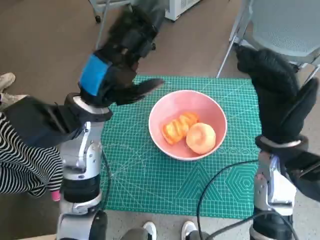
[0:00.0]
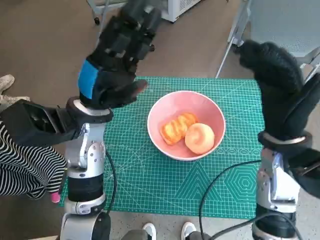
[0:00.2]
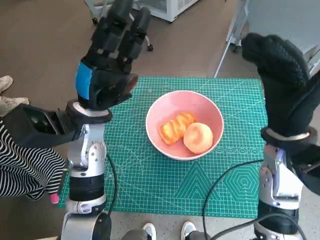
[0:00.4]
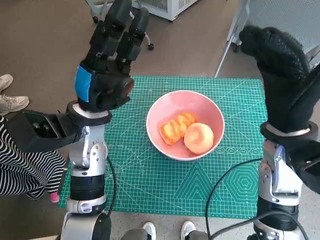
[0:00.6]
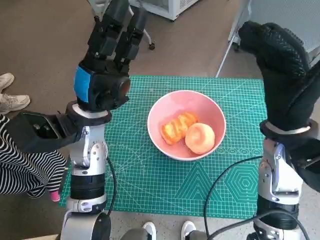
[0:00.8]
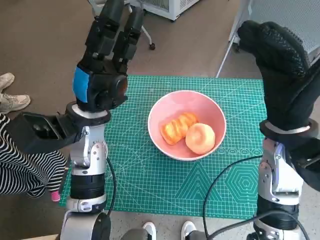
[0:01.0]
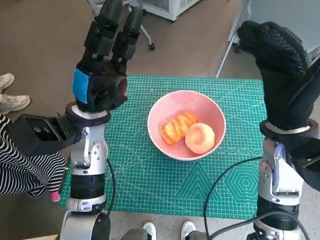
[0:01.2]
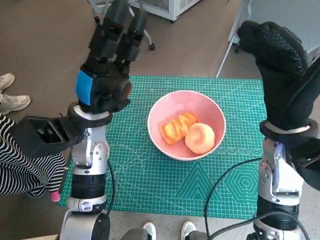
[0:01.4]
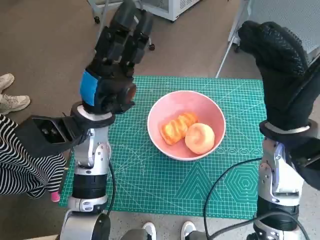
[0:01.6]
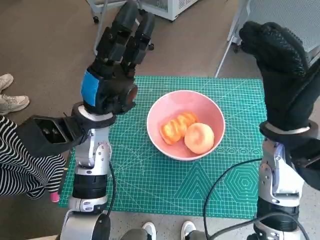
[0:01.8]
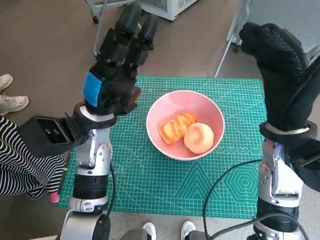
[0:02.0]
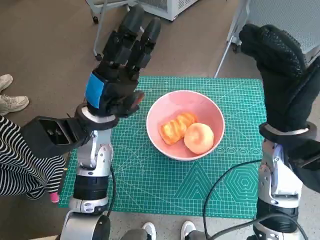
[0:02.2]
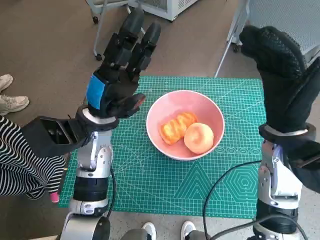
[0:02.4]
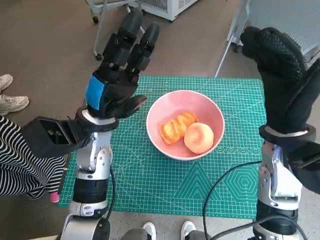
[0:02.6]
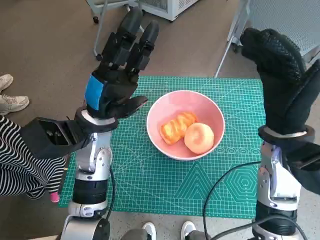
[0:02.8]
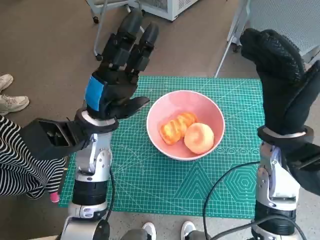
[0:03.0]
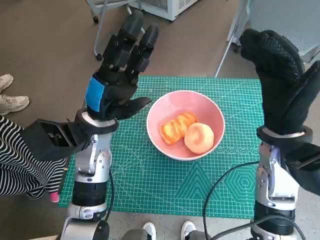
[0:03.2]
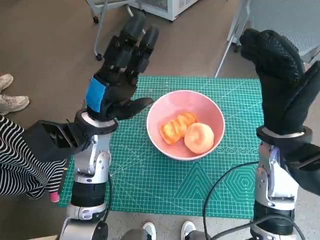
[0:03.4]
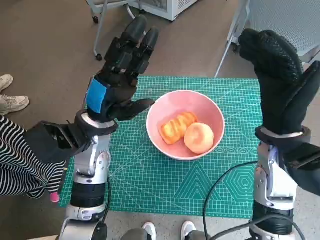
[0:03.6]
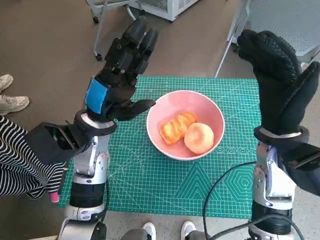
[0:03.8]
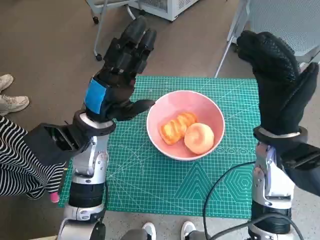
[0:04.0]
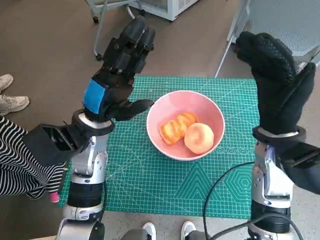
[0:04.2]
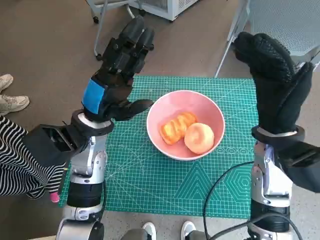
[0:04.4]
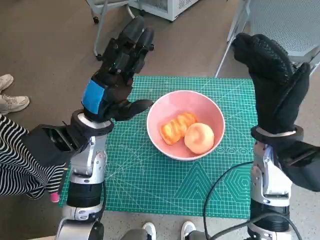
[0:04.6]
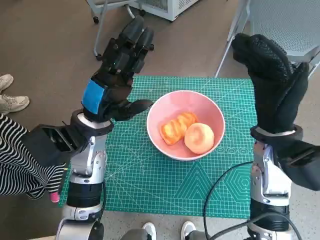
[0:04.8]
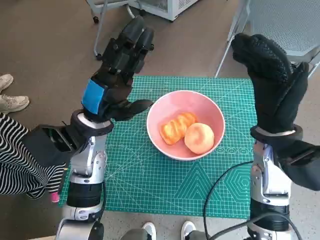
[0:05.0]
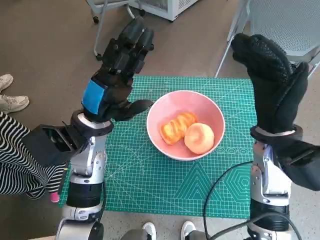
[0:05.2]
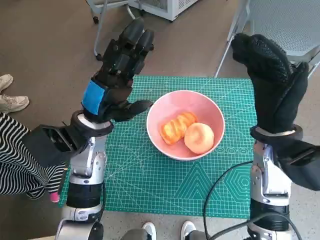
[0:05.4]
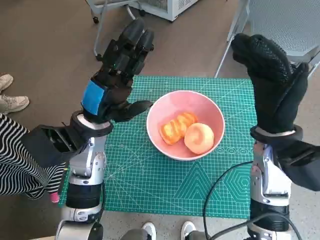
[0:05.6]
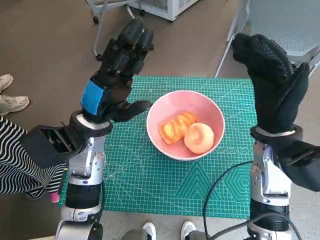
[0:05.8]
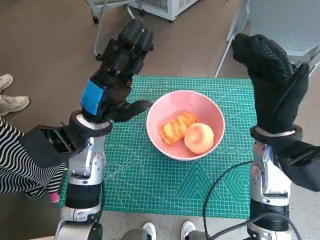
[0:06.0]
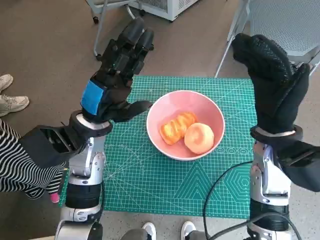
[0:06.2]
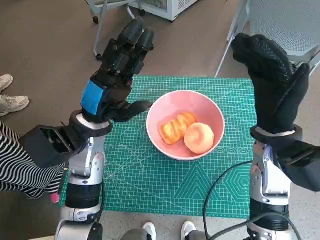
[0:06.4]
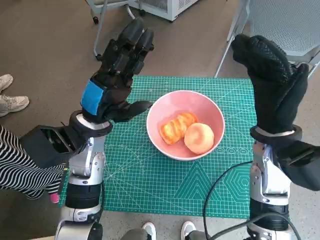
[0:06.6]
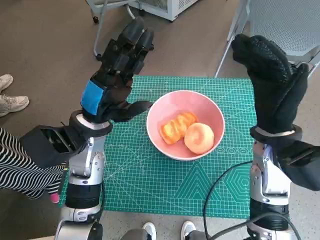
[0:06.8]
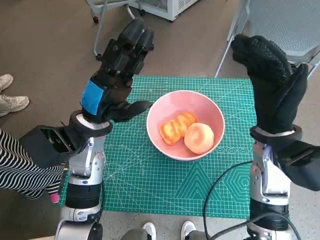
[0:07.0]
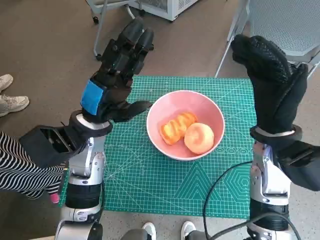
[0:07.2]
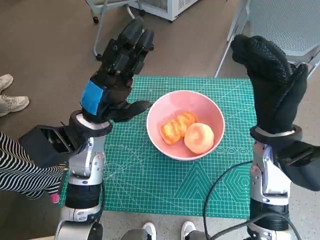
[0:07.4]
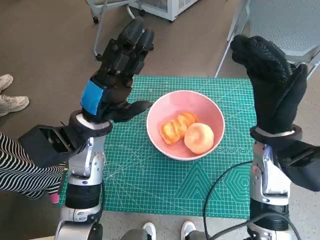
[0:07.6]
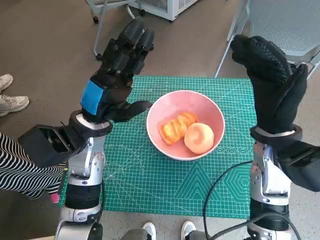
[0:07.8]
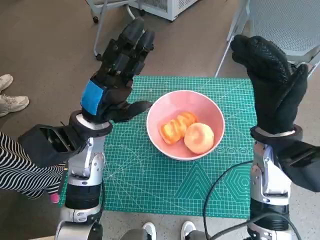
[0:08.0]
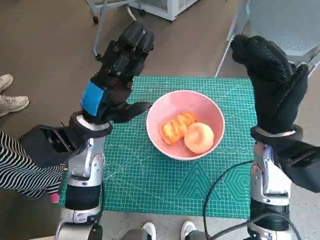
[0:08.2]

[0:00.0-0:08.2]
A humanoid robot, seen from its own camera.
Task of the whole recording: Push the bowl into the center of the table and put the bread into the bowl.
0:01.6 to 0:03.2: Both hands stay about where they are.
0:03.2 to 0:05.0: There are only small adjustments of the hands.
0:05.0 to 0:08.2: Neither hand changes place.

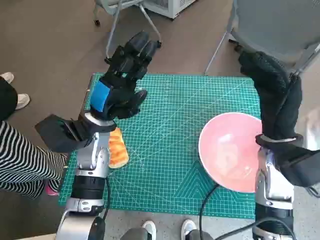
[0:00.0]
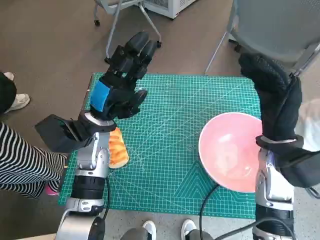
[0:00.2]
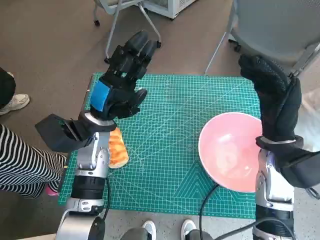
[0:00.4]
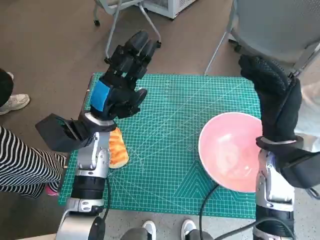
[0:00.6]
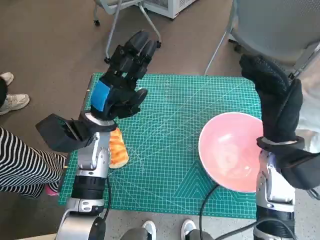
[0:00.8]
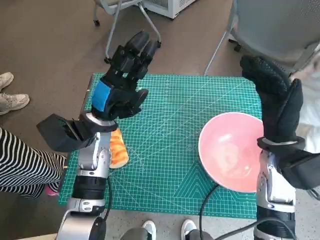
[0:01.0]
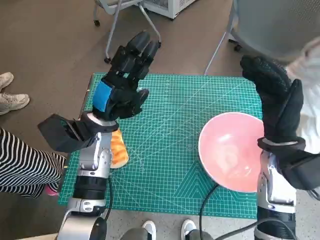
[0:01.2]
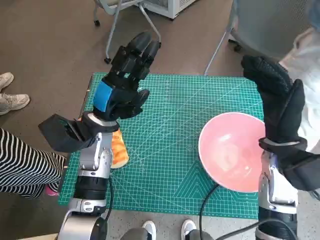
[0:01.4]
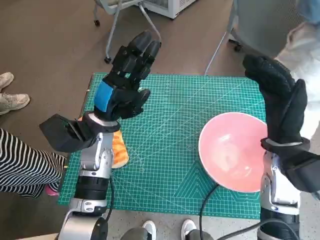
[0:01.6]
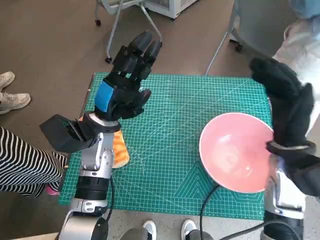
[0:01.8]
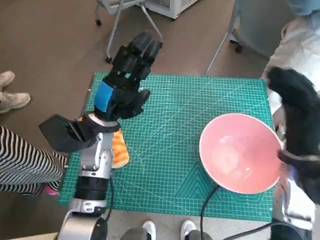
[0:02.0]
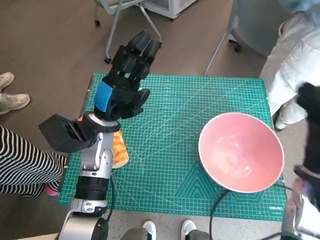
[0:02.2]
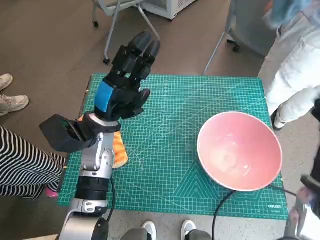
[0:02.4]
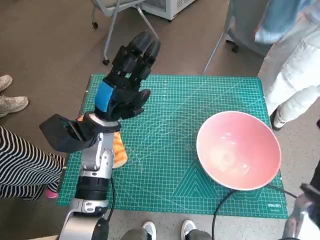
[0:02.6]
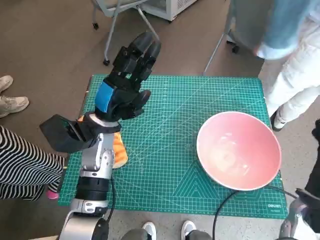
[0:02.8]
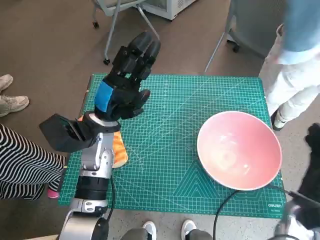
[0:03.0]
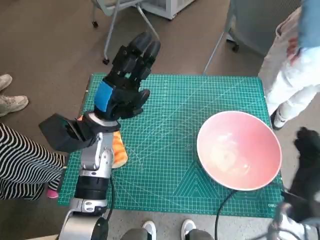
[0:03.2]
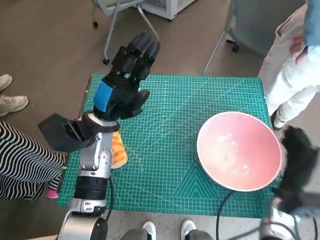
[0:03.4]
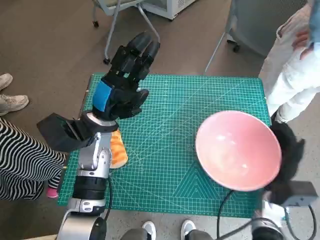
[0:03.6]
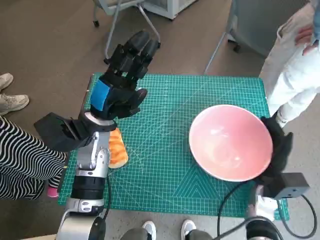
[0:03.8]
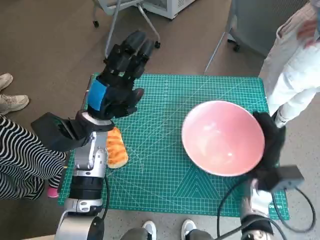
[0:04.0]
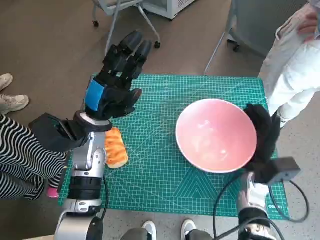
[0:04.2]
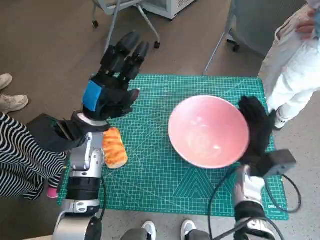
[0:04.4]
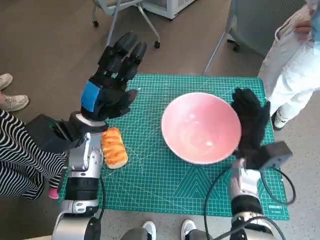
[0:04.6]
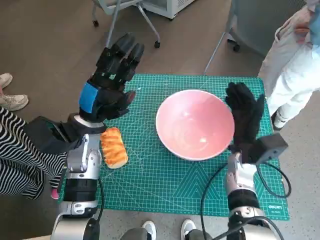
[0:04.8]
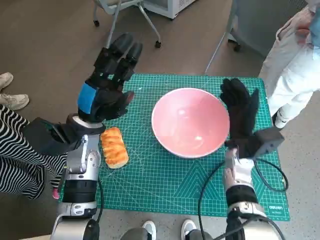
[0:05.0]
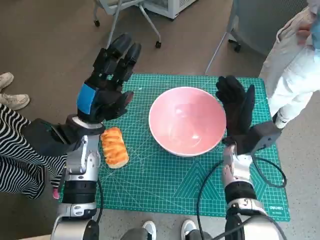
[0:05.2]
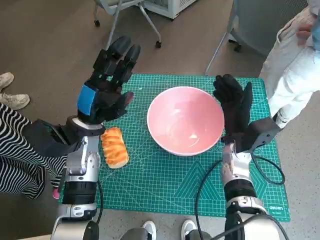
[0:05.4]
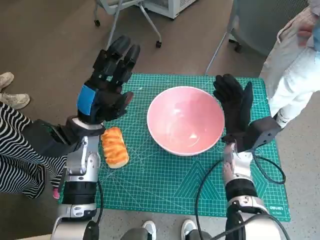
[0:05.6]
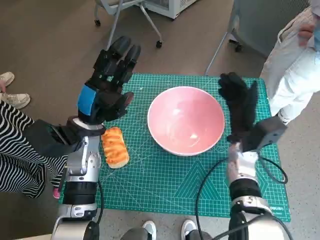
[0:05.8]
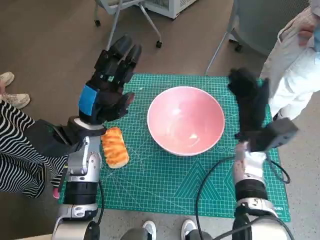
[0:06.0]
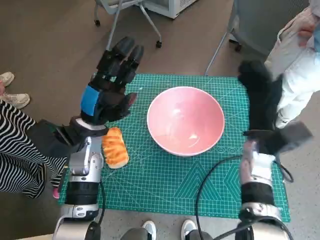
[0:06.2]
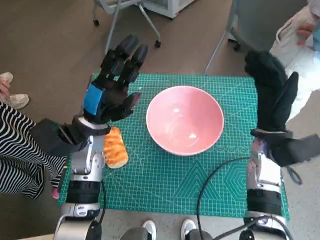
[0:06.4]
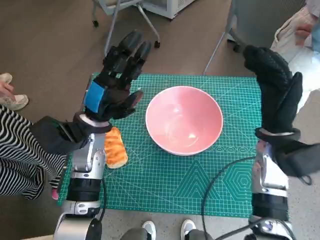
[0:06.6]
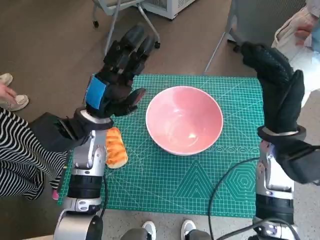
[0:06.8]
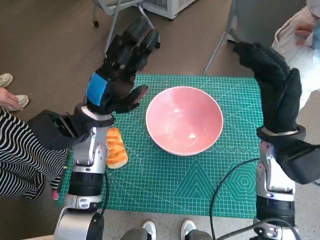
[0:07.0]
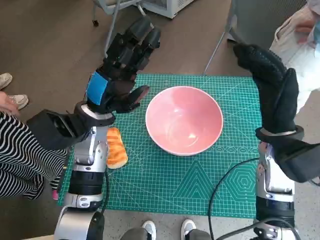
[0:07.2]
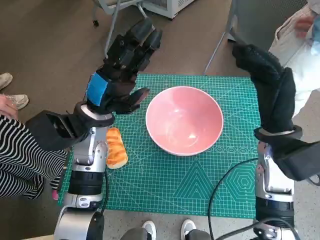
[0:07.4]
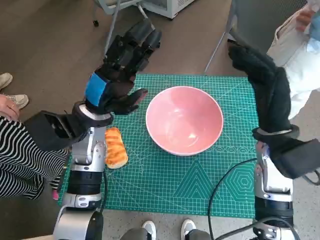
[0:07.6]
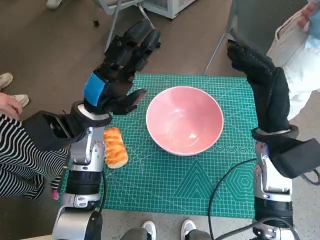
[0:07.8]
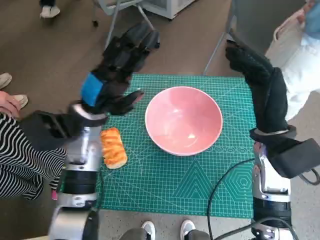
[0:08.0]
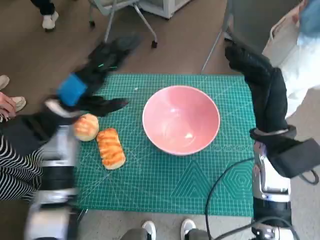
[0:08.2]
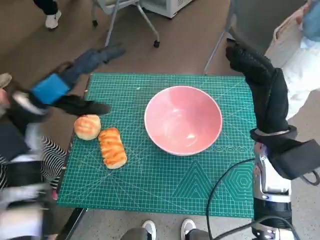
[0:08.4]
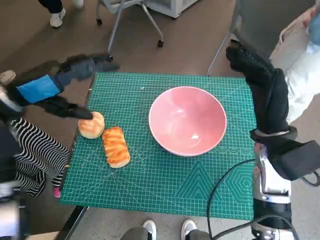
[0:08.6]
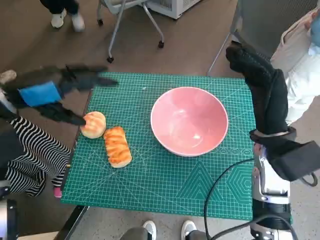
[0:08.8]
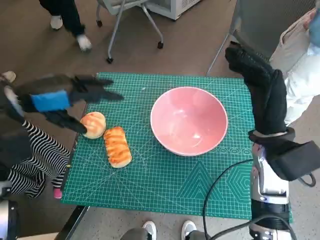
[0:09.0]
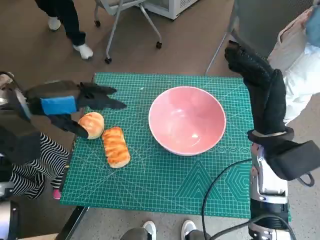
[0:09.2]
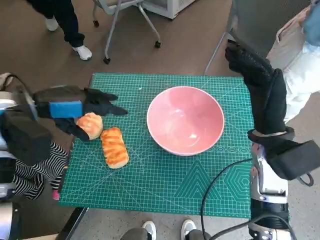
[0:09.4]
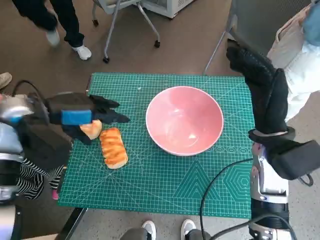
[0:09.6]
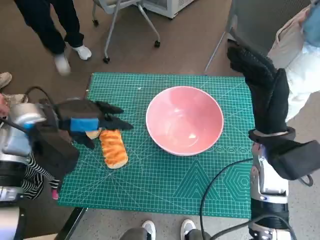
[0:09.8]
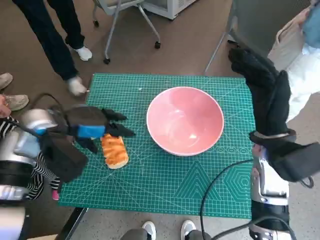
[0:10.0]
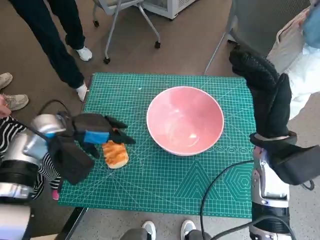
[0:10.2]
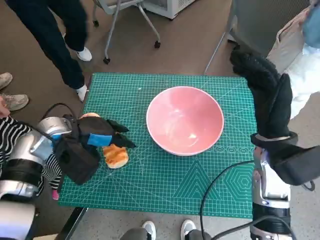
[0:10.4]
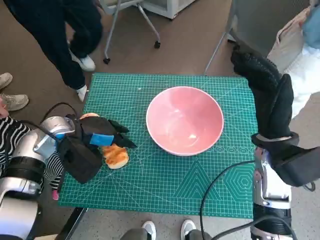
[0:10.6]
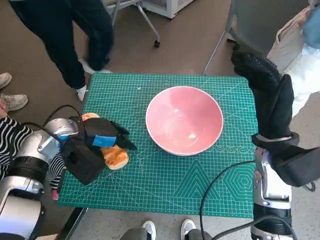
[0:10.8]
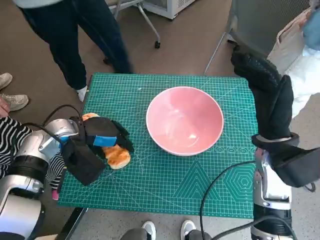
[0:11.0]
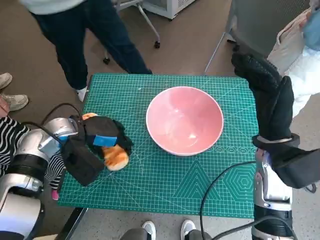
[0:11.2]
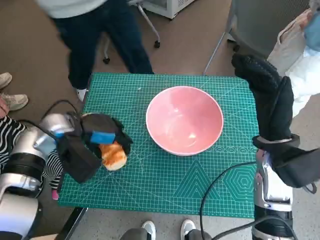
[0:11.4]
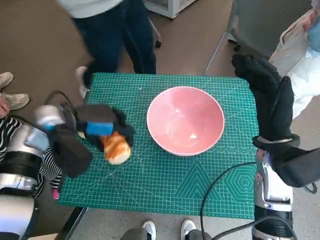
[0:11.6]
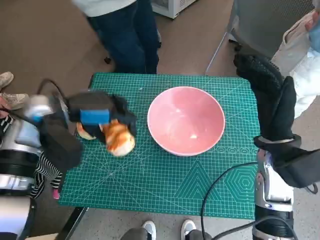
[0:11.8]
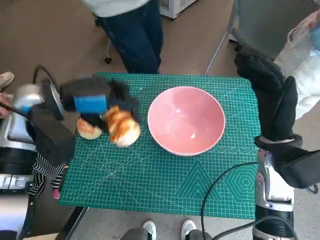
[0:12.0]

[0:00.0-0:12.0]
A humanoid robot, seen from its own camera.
Task of the whole recording: Push the bowl into the center of the table and put the bread into the bowl.
Step, 0:00.0 to 0:05.6: Move the pink bowl to the center of table with right hand.
Step, 0:06.0 to 0:10.8: Grasp the long bread with left hand.
0:01.6 to 0:03.0: The right hand shifts some 15 cm downward, to the right and backward.
0:03.0 to 0:04.4: The right hand is displaced to the left and forward by approximately 10 cm.
0:04.4 to 0:06.0: The right hand changes place by approximately 5 cm.
0:06.0 to 0:07.6: The right hand is displaced upward by some 10 cm.
0:07.6 to 0:09.0: The left hand is displaced to the left and upward by roughly 15 cm.
0:09.0 to 0:10.4: The left hand shifts roughly 10 cm downward.
0:10.4 to 0:12.0: The left hand goes roughly 10 cm upward.

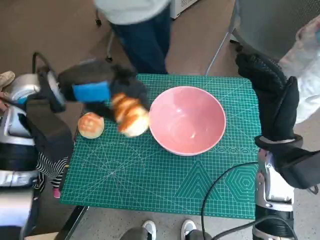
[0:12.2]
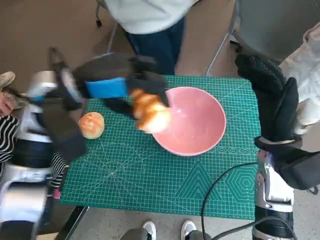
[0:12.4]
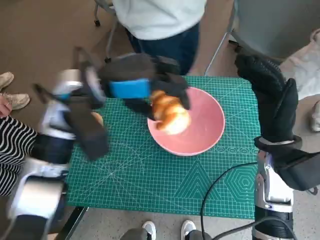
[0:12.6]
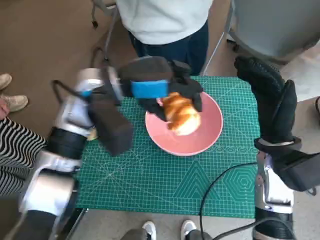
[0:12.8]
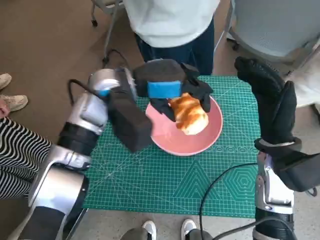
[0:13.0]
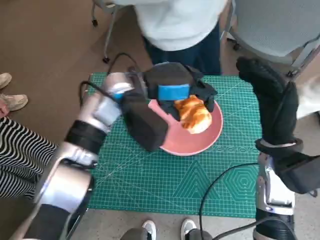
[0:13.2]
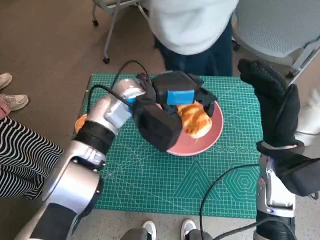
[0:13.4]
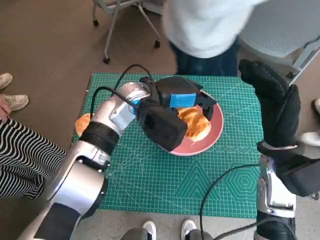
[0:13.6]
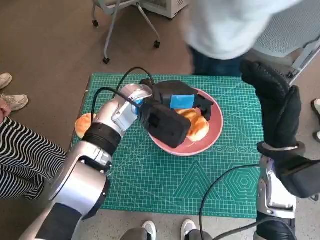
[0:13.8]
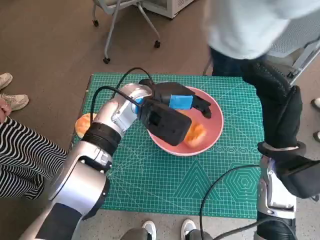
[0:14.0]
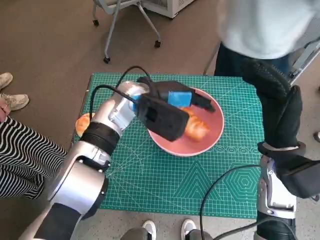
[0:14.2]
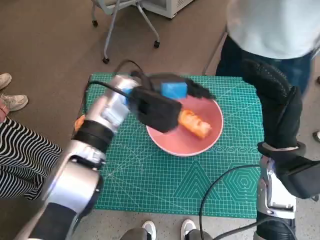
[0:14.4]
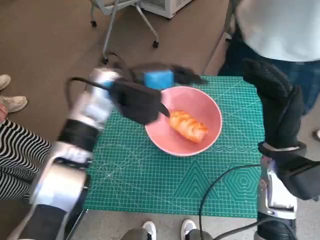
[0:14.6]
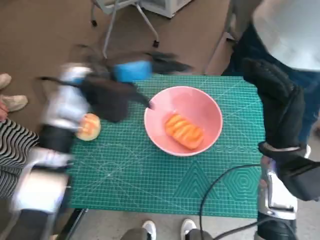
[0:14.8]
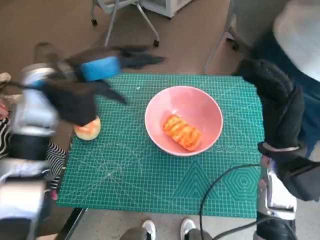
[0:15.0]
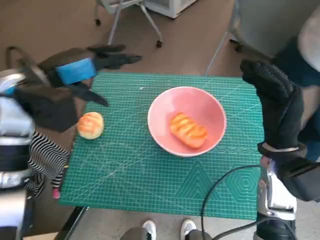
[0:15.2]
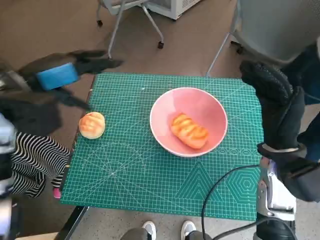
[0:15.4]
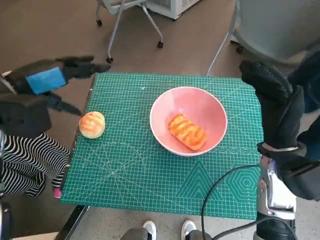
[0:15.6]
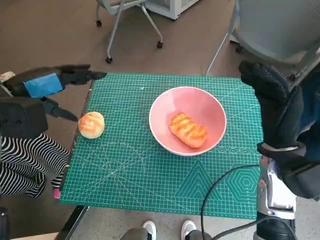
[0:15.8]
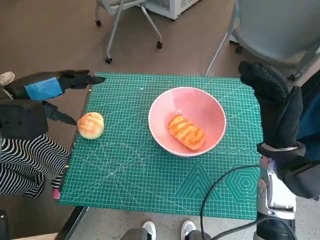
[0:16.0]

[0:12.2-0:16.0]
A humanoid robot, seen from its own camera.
Task of the whole recording: Push the bowl into the center of the table and put the bread into the bowl.
Step, 0:12.2 to 0:14.2: Place the long bread in pink bowl with left hand.
0:12.2 to 0:13.4: The left hand is displaced to the right by about 15 cm.
0:13.4 to 0:14.8: The left hand shifts some 5 cm to the left.
0:14.8 to 0:16.0: The left hand goes about 15 cm to the left and backward.
